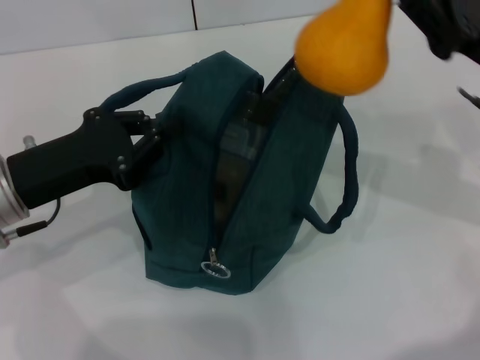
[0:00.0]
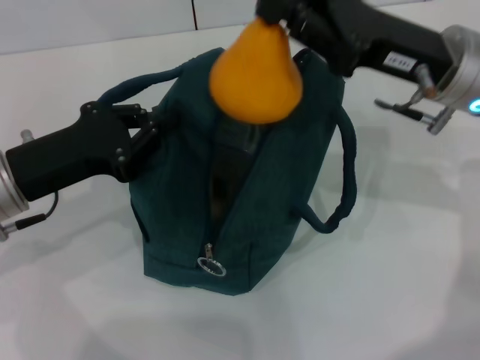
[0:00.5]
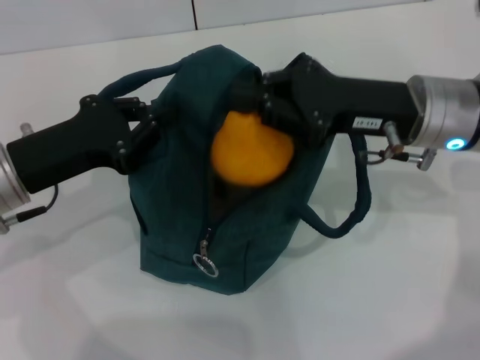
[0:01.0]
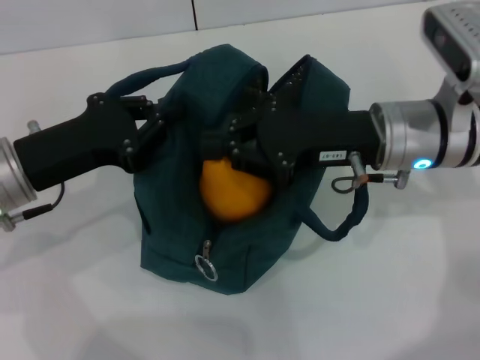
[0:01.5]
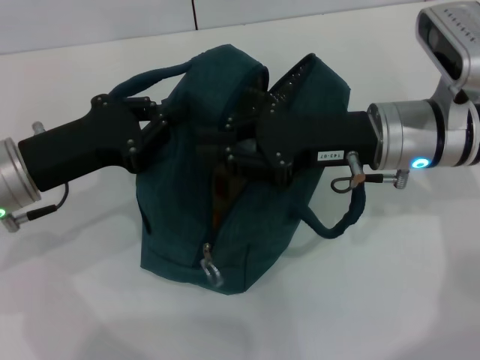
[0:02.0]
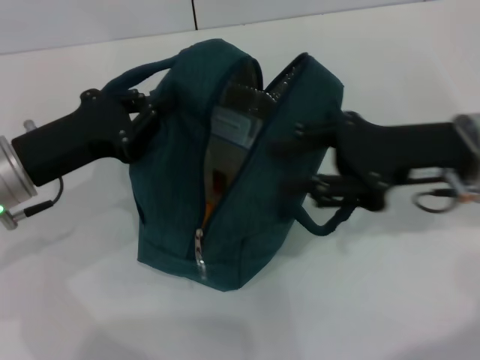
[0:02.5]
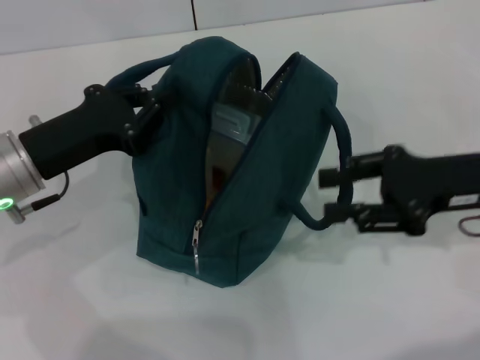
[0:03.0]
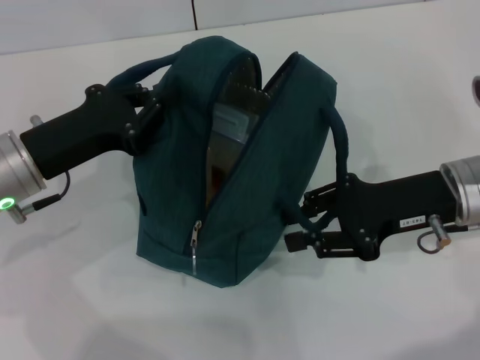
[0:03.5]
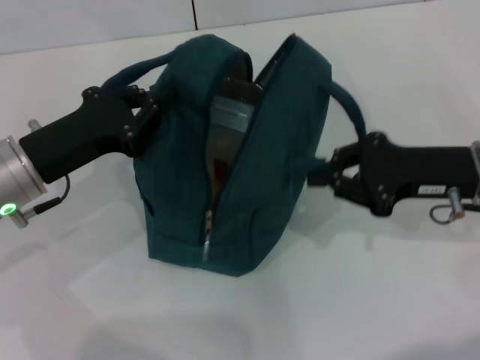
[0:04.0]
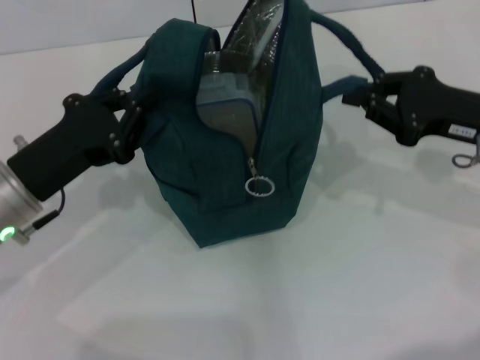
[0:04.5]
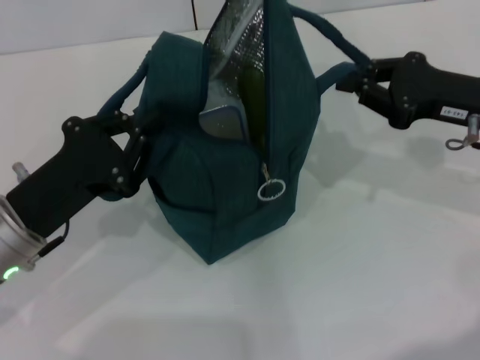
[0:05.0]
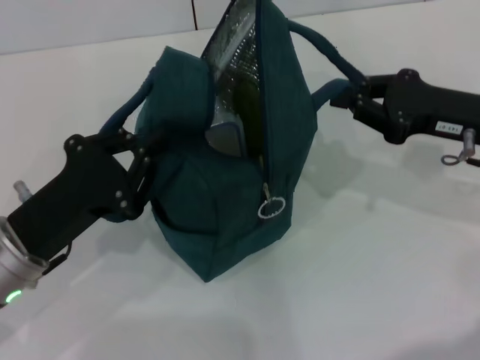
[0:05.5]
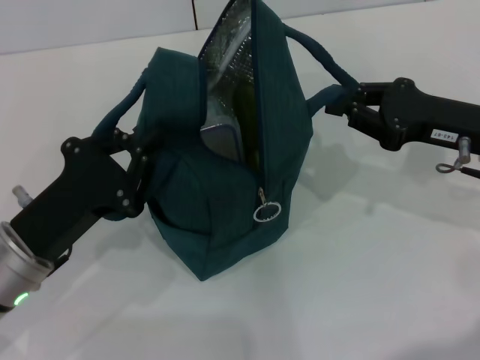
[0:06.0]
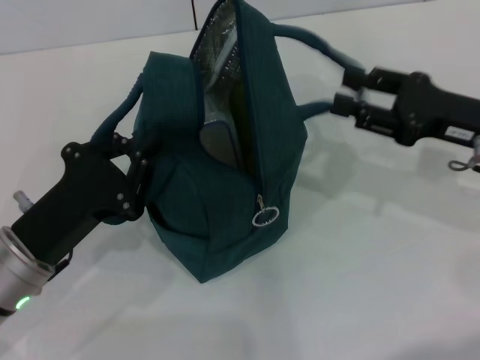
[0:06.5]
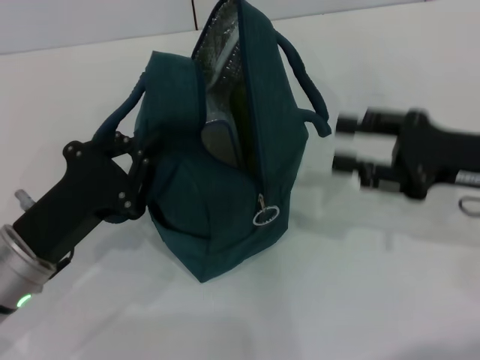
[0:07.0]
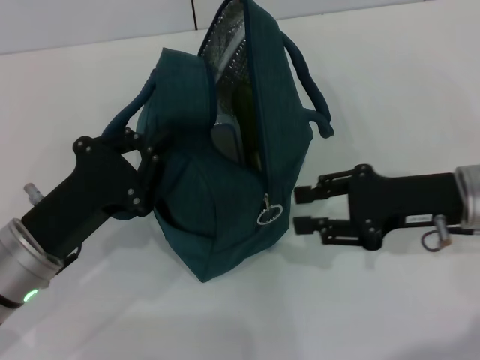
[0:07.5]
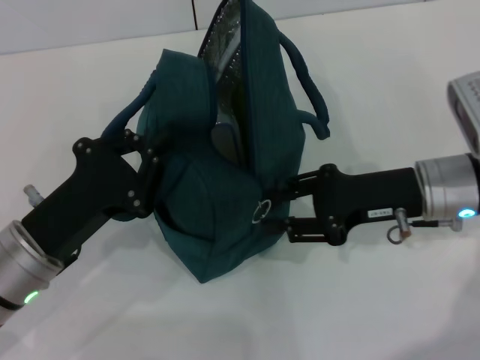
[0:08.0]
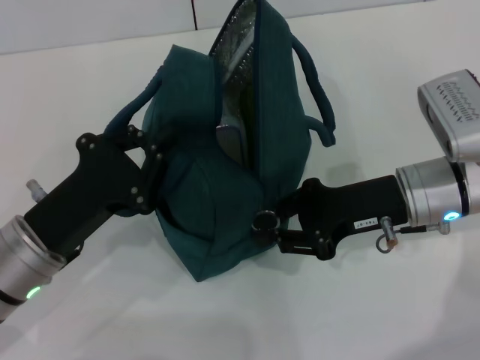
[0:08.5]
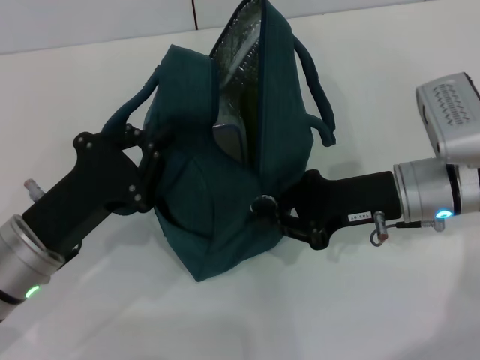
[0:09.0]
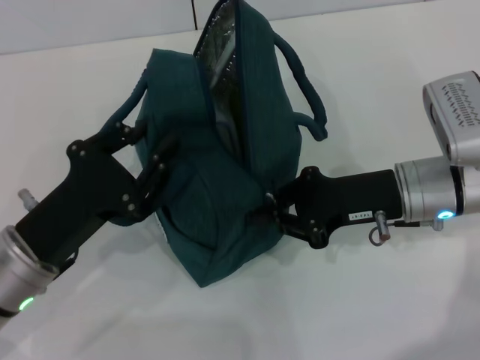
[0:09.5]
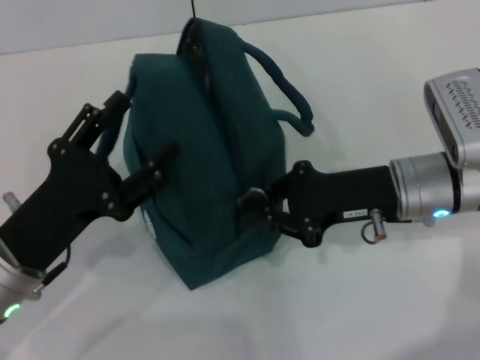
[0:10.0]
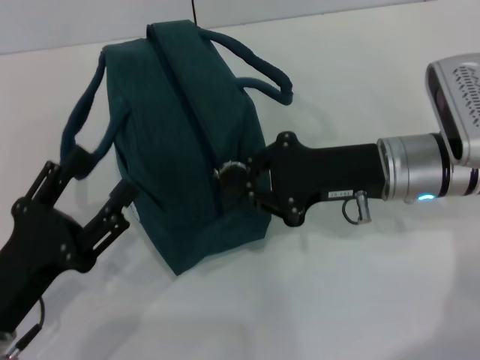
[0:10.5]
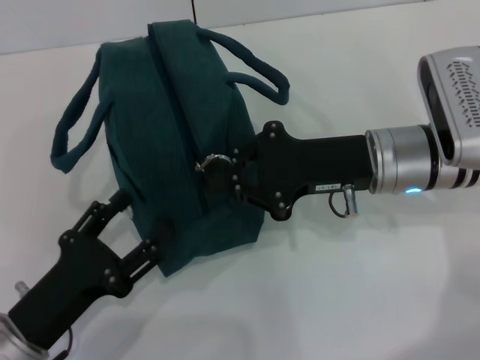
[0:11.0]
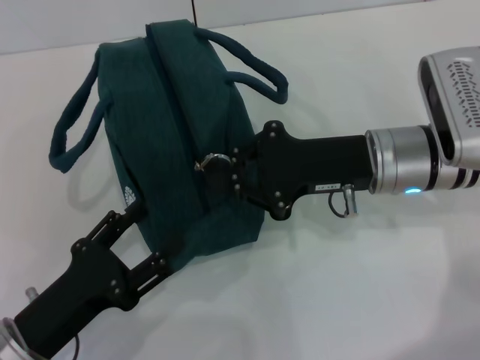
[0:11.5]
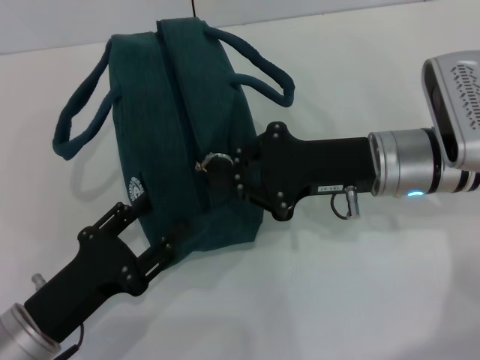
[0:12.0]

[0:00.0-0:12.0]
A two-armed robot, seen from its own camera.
Step, 0:00.0 to 0:02.0: Secure the lunch bag with your left hand.
Step, 0:02.5 to 0:06.0: Hold the lunch bag with your right hand.
0:00.0 to 0:02.0: The right gripper is displaced to the left by roughly 10 cm.
0:02.0 to 0:04.0: The right gripper heads to the right, covering roughly 10 cm, and opens and closes again.
0:04.0 to 0:06.0: The left gripper heads backward, covering approximately 5 cm.
0:06.0 to 0:08.0: The right gripper goes about 5 cm to the left.
0:08.0 to 0:10.0: The right gripper closes. Meanwhile the left gripper opens up.
0:10.0 to 0:12.0: The left gripper shifts by some 5 cm.

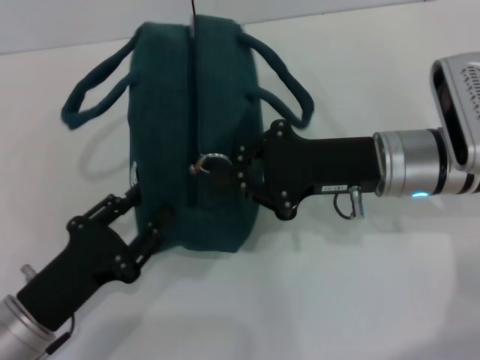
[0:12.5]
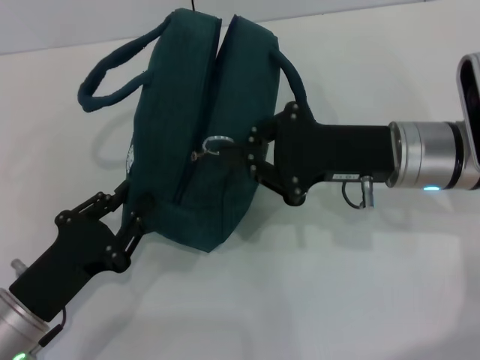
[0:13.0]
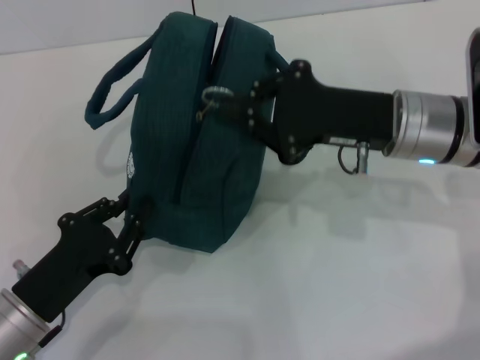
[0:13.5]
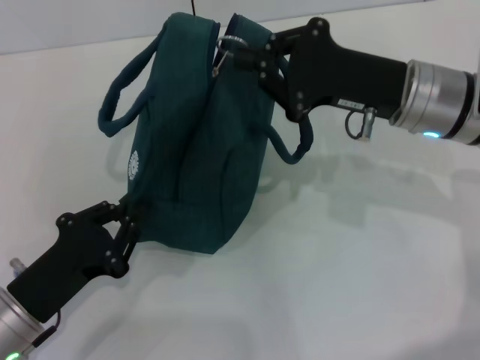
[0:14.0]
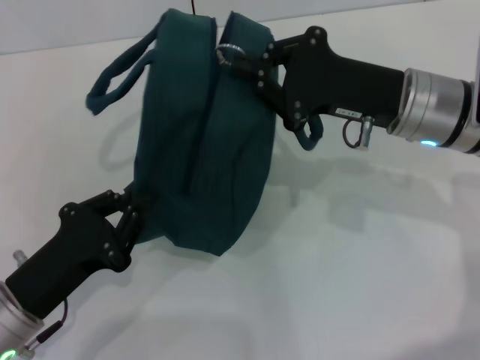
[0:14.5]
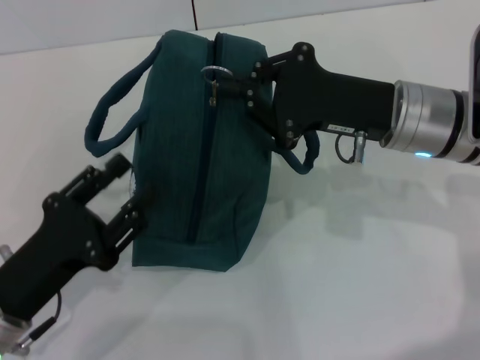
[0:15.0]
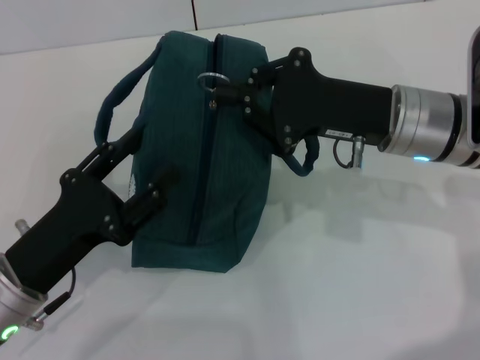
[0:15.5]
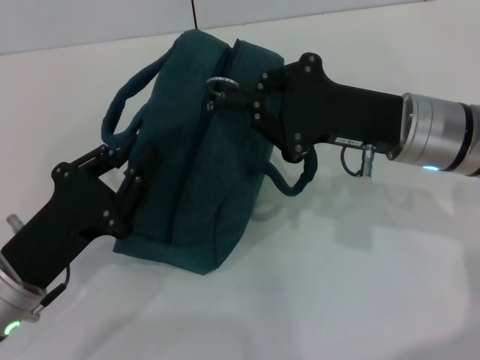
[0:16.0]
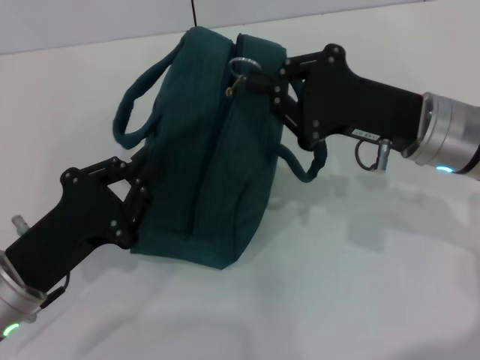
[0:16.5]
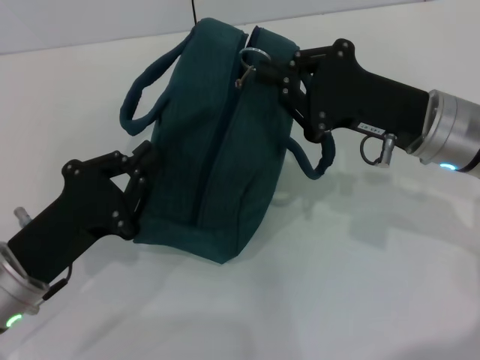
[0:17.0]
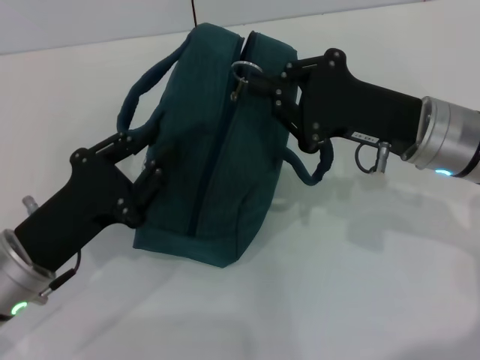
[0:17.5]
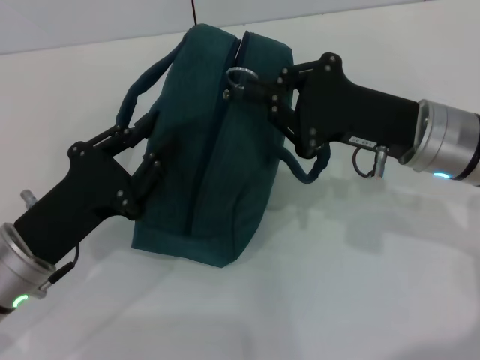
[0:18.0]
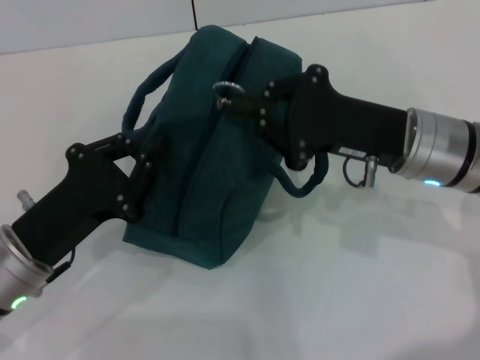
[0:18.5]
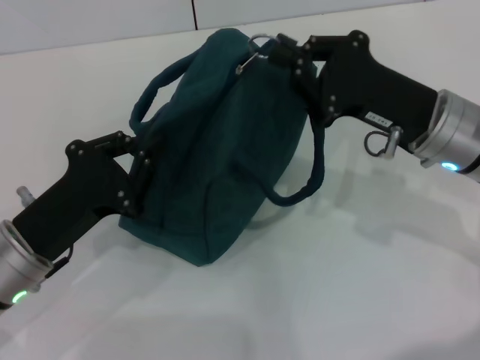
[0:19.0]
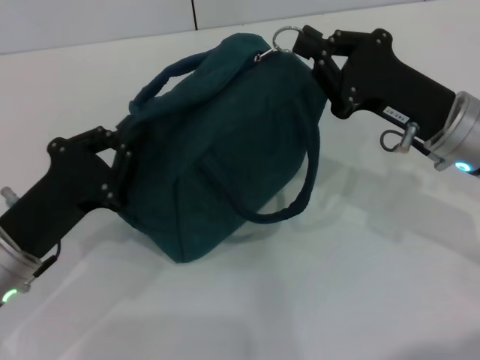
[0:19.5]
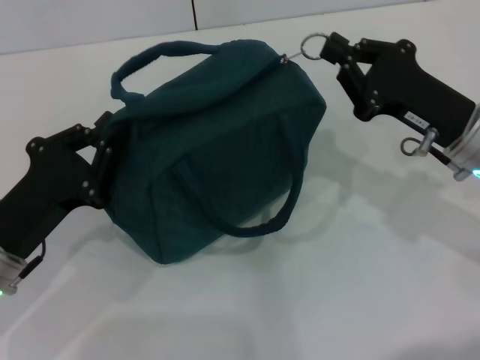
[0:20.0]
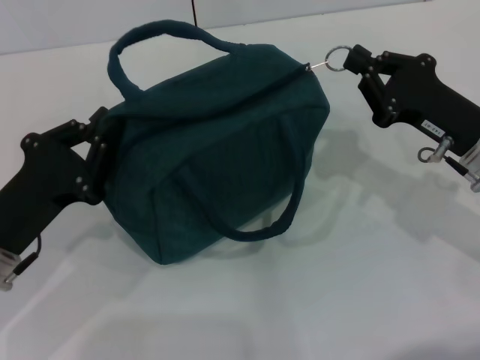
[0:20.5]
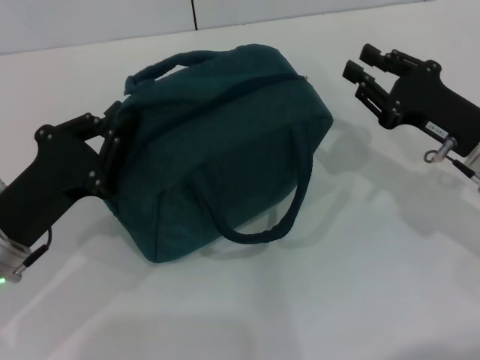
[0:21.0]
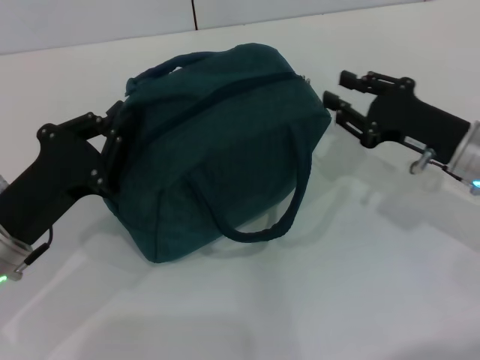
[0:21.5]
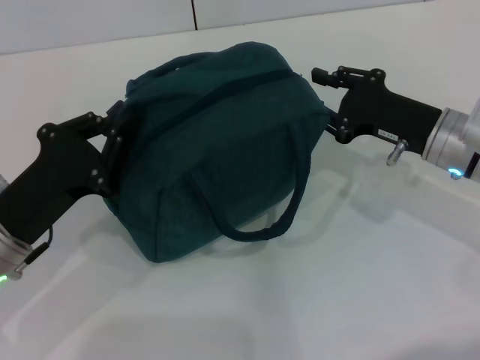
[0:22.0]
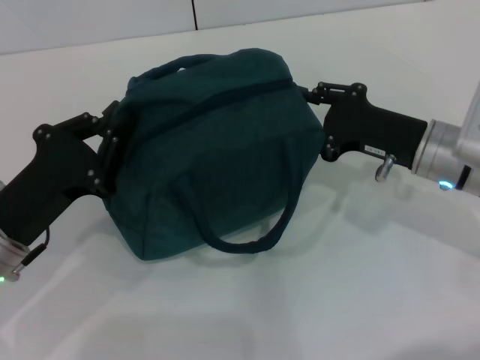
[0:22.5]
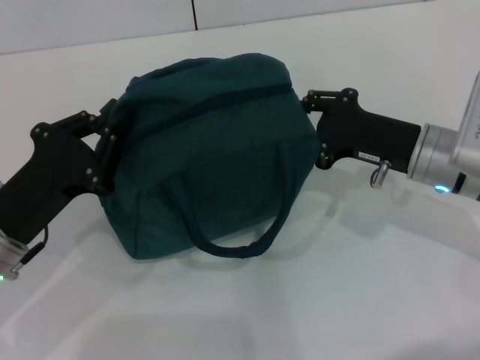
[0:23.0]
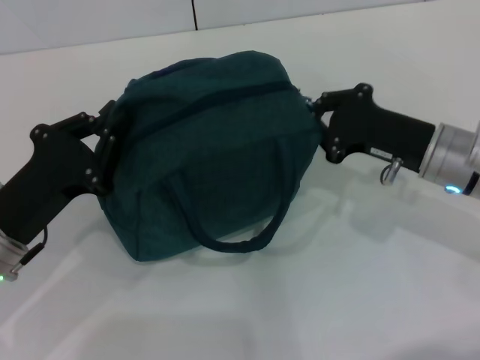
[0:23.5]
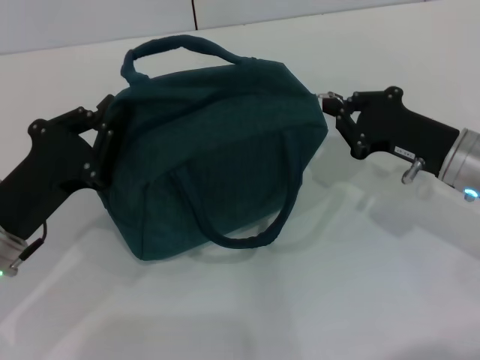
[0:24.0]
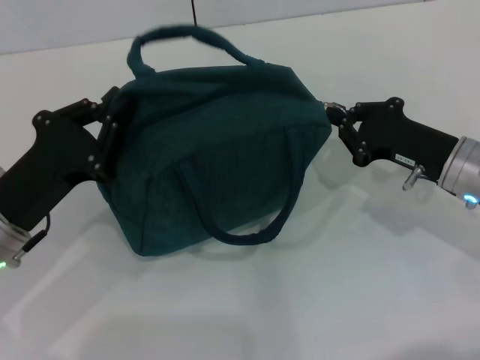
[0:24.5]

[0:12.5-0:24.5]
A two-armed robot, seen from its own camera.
0:12.5 to 0:14.5: The left gripper closes up.
0:14.5 to 0:16.5: The left gripper opens and closes again.
0:16.5 to 0:18.5: The left gripper opens and closes again.
0:18.5 to 0:20.5: The right gripper moves to the right, approximately 5 cm.
0:20.5 to 0:22.5: There are only small adjustments of the grippers.
0:22.5 to 0:24.5: The right gripper closes up.

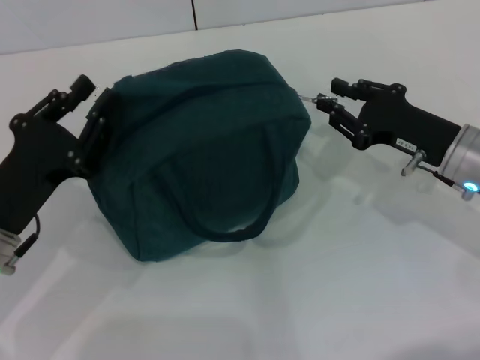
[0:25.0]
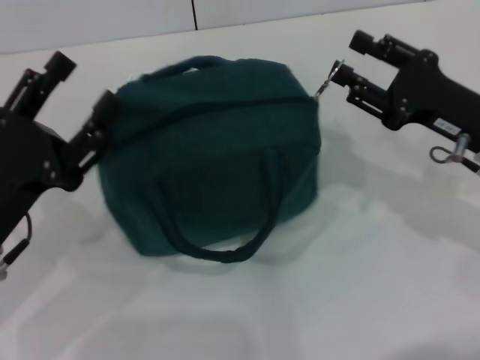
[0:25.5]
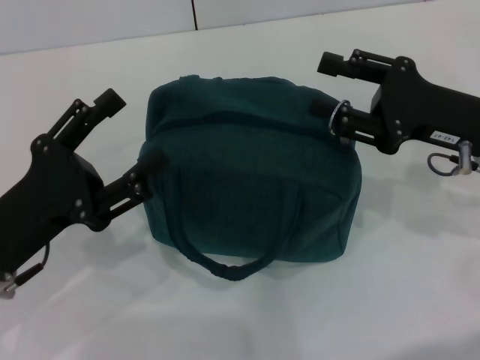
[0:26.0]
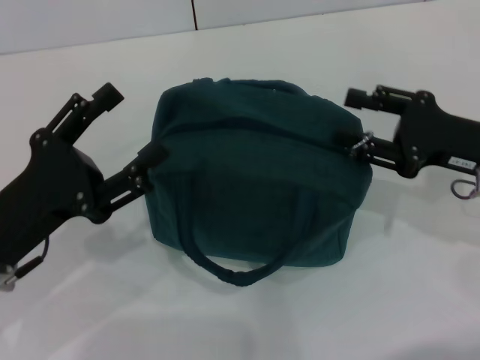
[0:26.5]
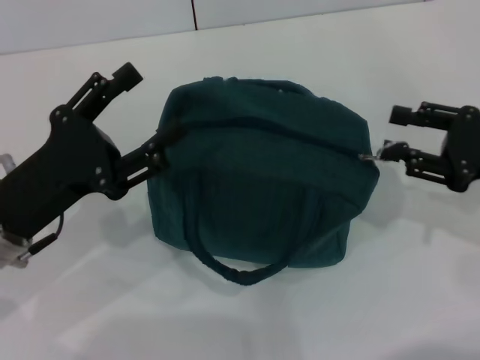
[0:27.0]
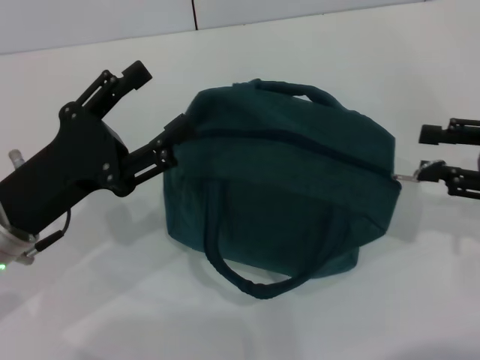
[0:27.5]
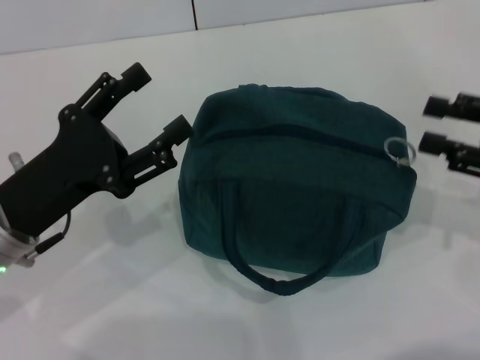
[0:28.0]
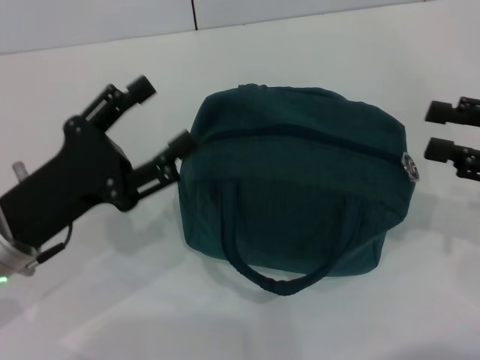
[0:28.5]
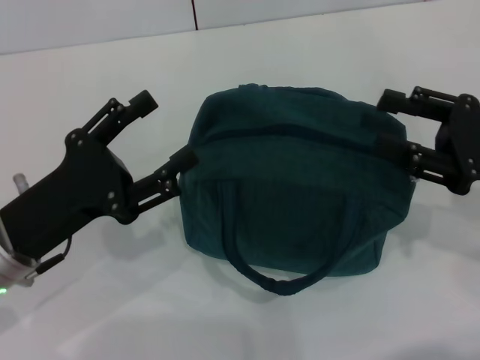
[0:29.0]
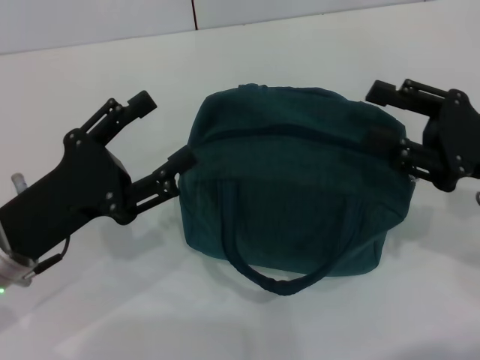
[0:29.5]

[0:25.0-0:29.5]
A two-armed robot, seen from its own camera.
Step, 0:25.0 to 0:28.0: Zip up the lunch bag with your right hand.
0:25.0 to 0:27.0: The right gripper shifts some 5 cm to the right, and opens up; the left gripper opens up.
